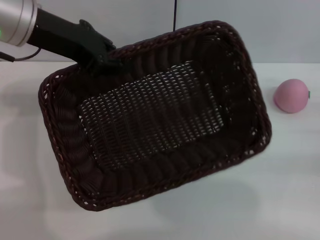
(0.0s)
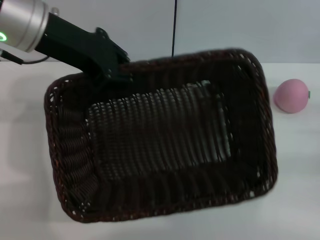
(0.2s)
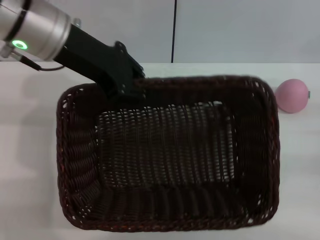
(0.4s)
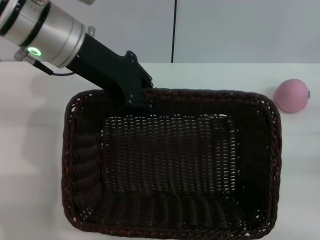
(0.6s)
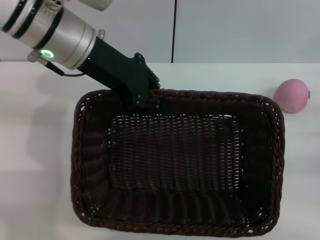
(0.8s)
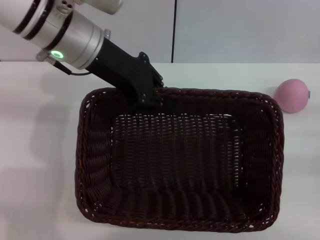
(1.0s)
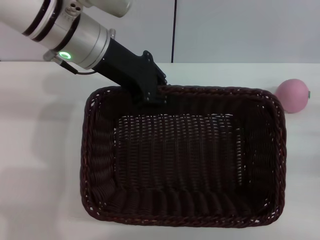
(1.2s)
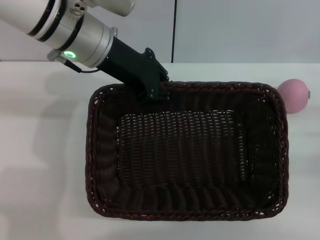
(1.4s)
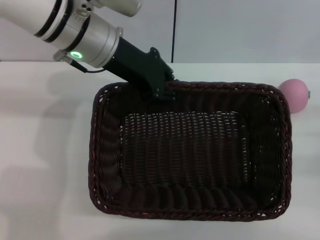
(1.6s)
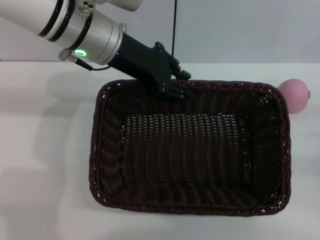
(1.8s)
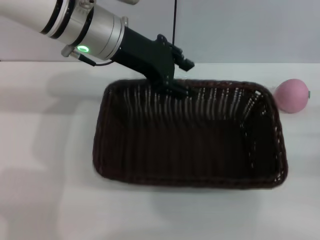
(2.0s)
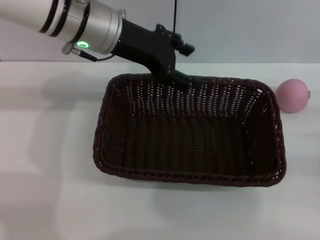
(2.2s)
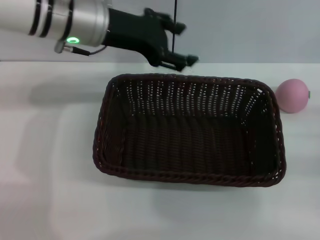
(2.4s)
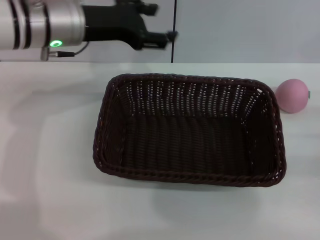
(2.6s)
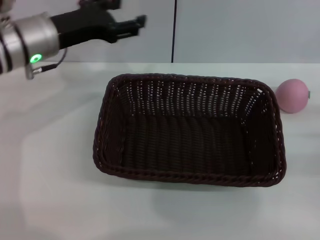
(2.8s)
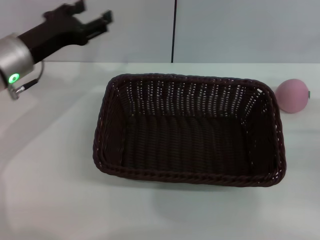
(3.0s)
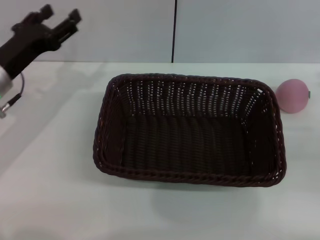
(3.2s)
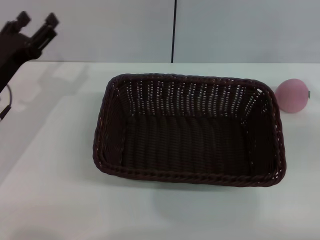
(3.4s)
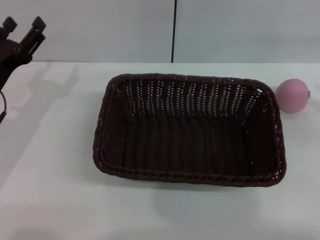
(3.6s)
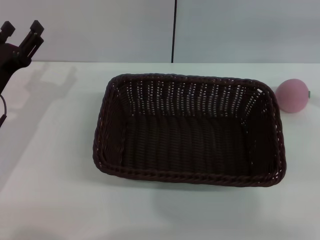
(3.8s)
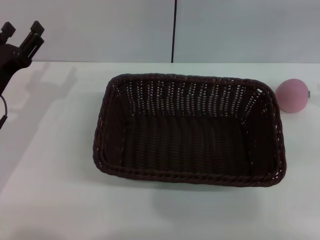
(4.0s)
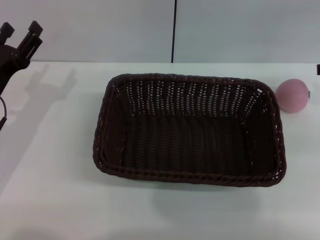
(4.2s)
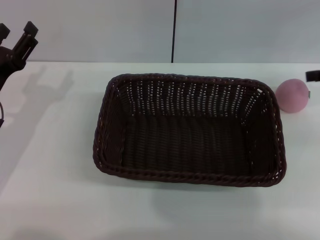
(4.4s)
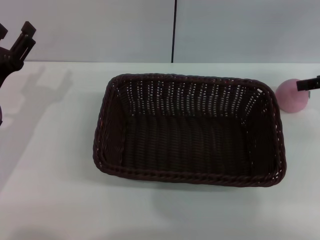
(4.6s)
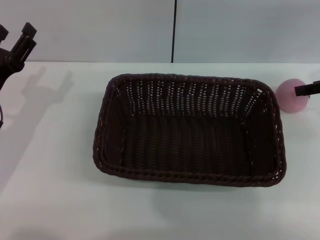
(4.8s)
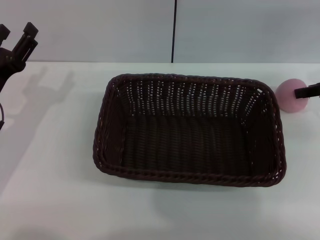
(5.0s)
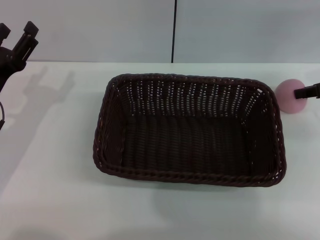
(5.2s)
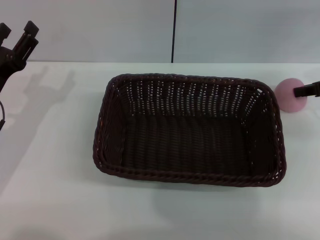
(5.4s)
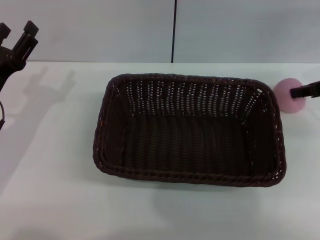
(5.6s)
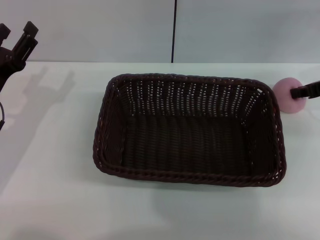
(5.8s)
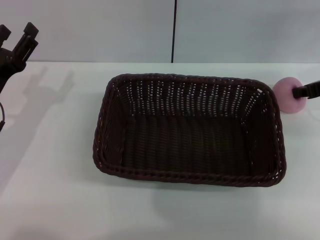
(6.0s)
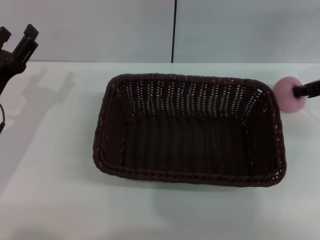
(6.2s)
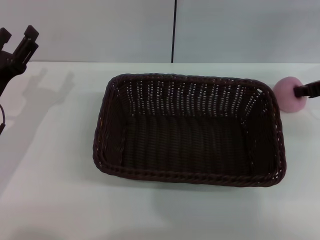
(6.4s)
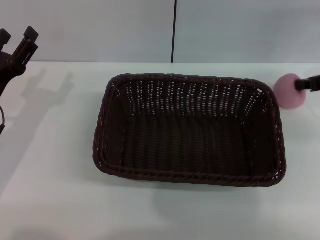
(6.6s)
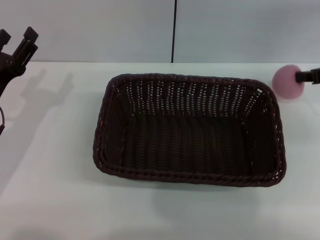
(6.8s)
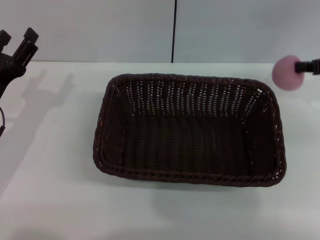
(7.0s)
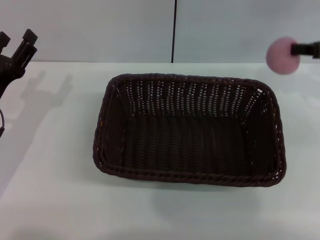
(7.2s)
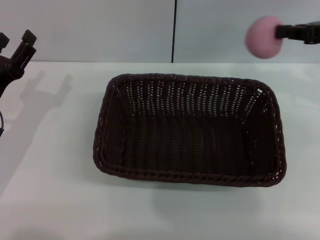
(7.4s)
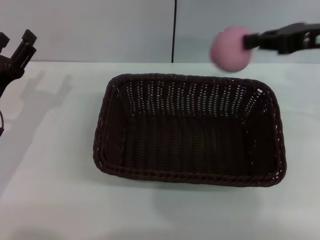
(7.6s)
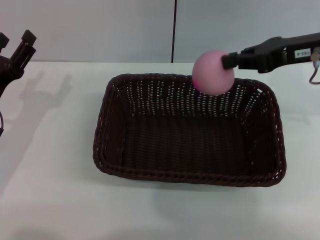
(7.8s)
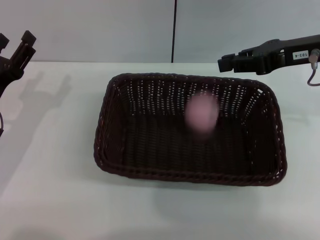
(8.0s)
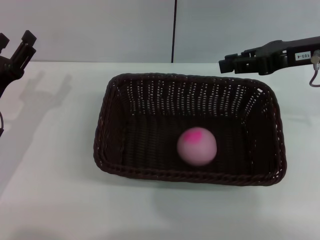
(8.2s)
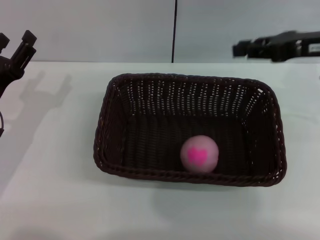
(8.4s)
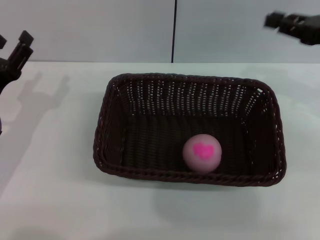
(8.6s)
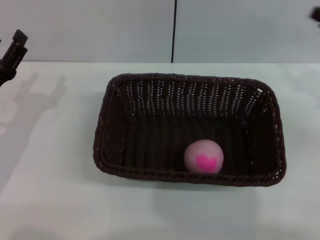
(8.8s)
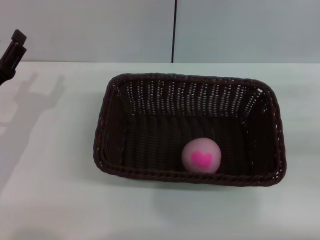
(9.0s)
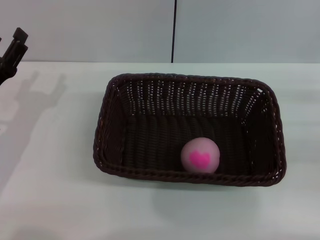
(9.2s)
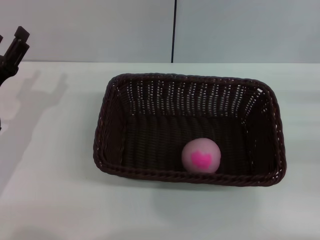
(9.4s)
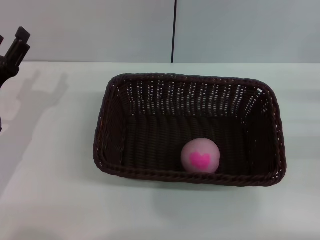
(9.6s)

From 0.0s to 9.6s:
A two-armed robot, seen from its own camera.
Step, from 2.6s to 7.0s: Pick up the peach with the left gripper.
From 0.0s to 1.6s: The left gripper goes approximately 10 cm to the right.
From 1.6s to 3.2s: The left gripper moves to the left and downward, approximately 20 cm, and opens its fingers.
From 3.2s to 4.8s: The left gripper moves some 5 cm.
From 6.4s to 8.0s: The right gripper goes roughly 10 cm to the left and upward.
From 8.0s to 9.6s: The right gripper moves to the right, downward and backward, about 20 cm, and opens its fingers.

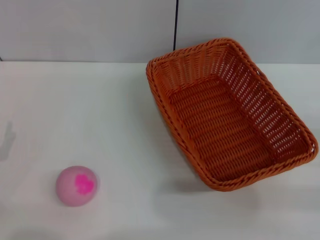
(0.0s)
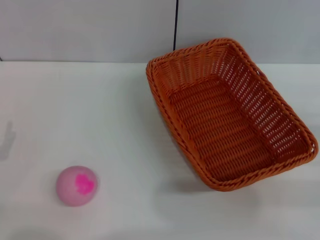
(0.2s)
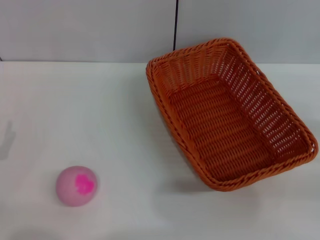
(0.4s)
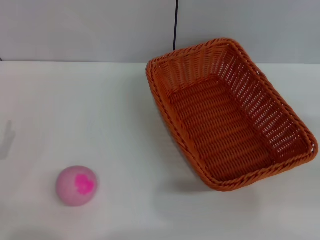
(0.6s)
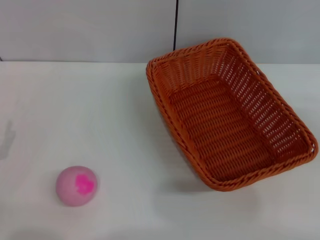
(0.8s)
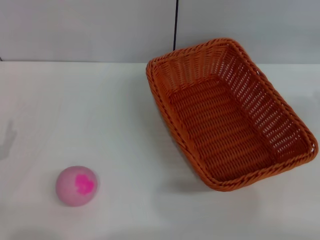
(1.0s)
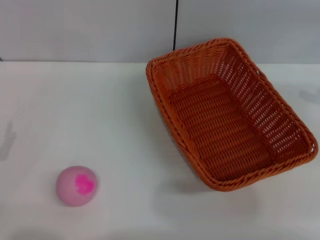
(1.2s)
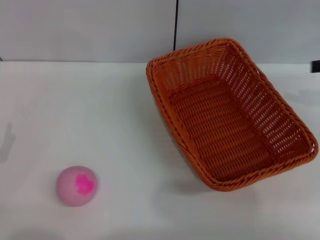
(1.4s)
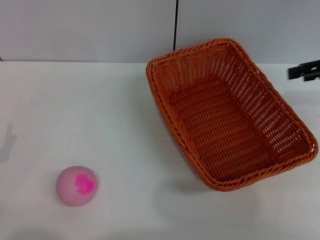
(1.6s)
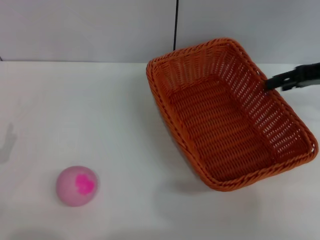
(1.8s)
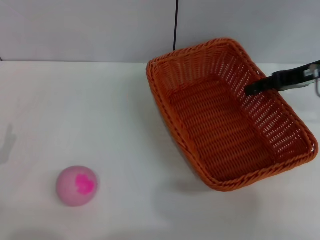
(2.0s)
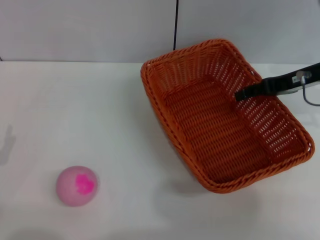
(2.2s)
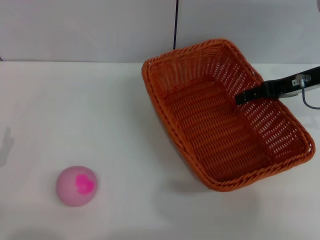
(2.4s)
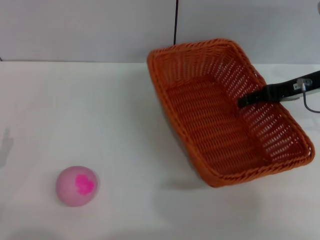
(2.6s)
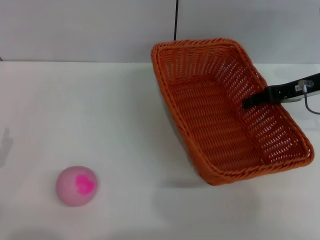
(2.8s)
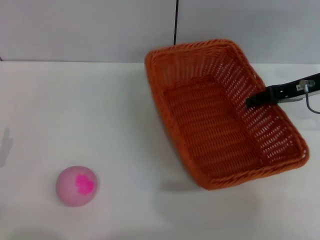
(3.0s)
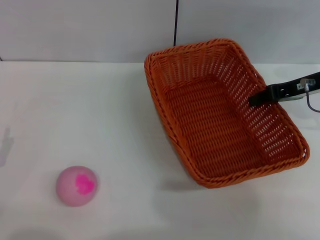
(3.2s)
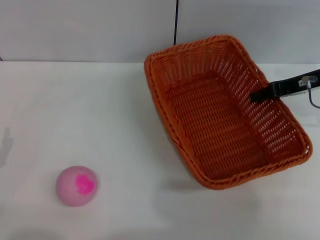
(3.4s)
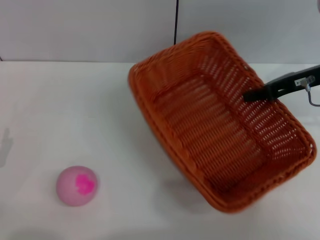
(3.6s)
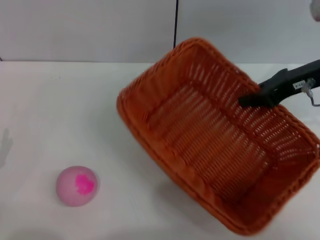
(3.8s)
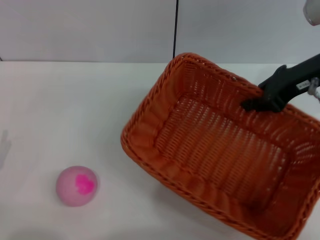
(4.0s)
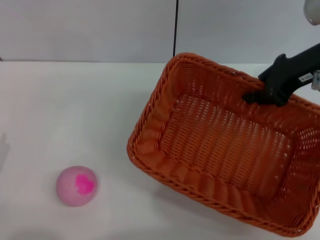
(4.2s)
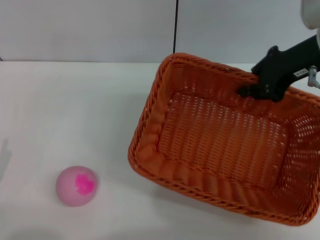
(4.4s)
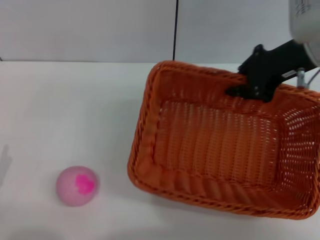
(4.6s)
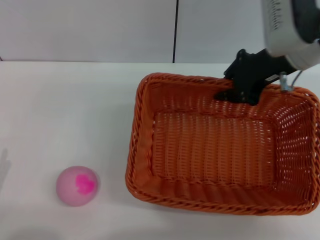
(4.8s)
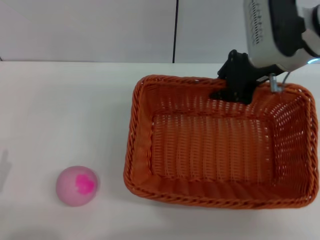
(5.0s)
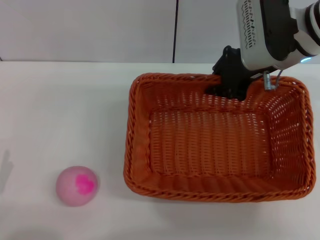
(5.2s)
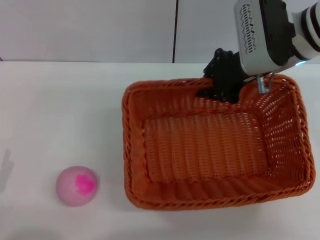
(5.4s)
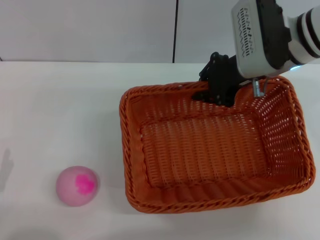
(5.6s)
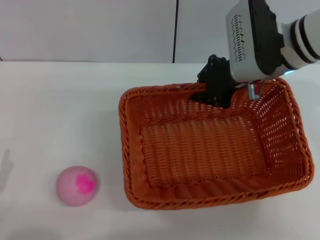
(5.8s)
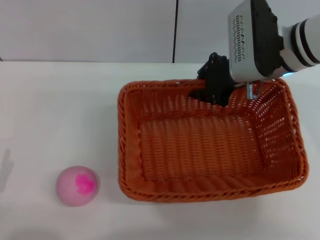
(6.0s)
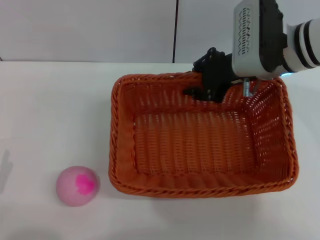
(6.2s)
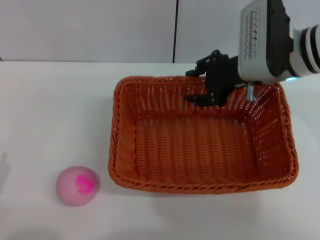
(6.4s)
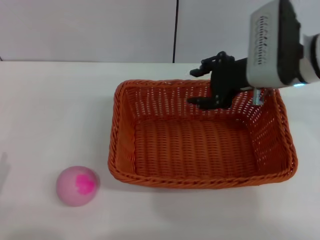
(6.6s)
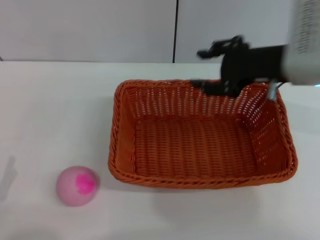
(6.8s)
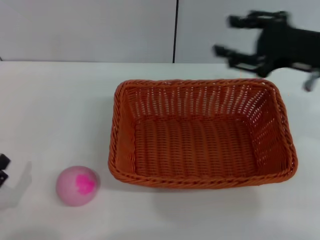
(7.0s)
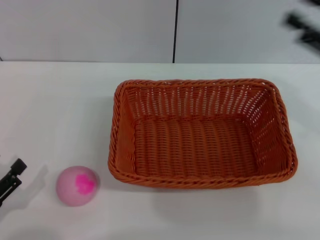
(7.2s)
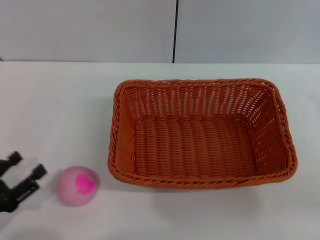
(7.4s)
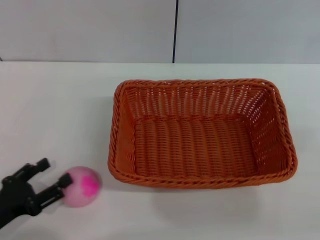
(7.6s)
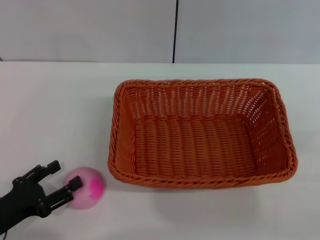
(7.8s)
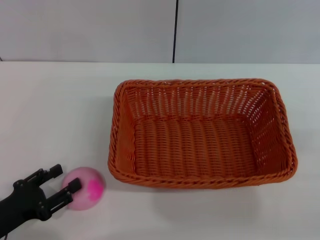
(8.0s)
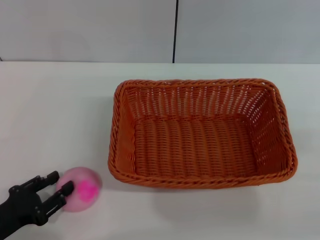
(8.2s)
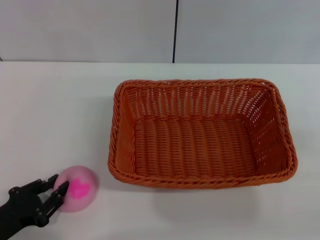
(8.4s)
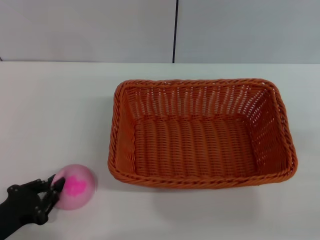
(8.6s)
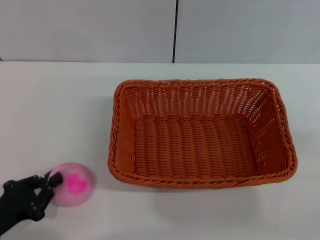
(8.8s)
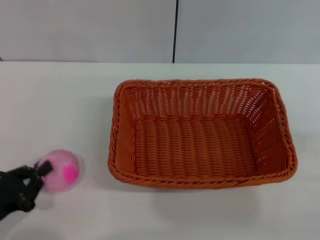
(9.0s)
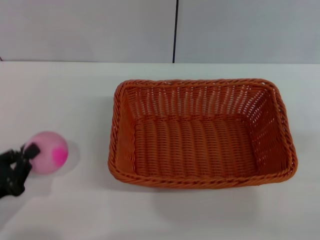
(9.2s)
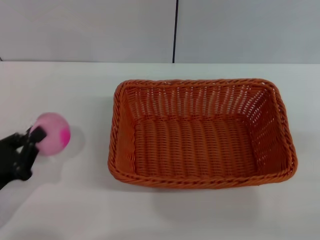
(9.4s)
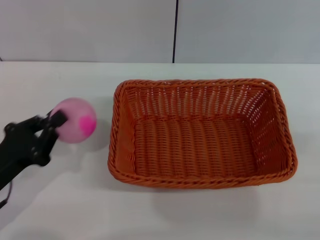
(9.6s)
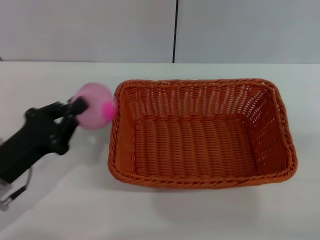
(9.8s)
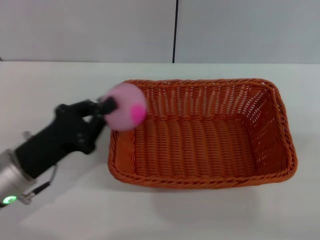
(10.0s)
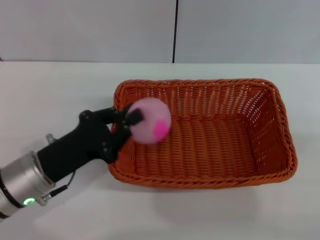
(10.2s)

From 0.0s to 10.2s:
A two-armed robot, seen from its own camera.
Step, from 0.0s to 3.8s: Pick up the light basket with the right gripper.
Step, from 4.0s to 6.6s: Place the light basket in the center of view with the right gripper.
Step, from 6.8s to 9.2s: Pick up the peach with the left gripper.
From 0.0s to 1.4s: The right gripper goes approximately 20 cm upward and forward.
From 1.4s to 3.0s: The right gripper travels to the left and downward by about 10 cm, and closes its fingers.
From 3.0s to 4.4s: The right gripper travels upward and to the left by about 10 cm, and closes its fingers.
From 4.4s to 5.8s: The right gripper is displaced to the left by some 5 cm.
From 5.8s to 7.2s: The right gripper shifts some 20 cm to the right and backward, and opens up.
From 7.2s to 8.8s: The left gripper closes up; the right gripper is displaced to the right, backward and downward by about 15 cm.
From 8.8s to 10.2s: The left gripper is displaced to the right and forward by approximately 15 cm.

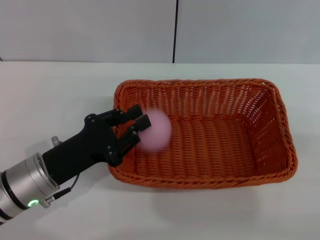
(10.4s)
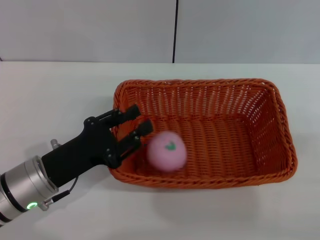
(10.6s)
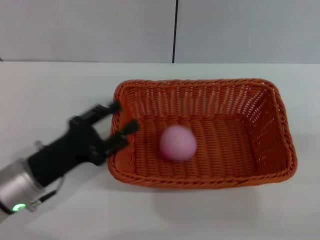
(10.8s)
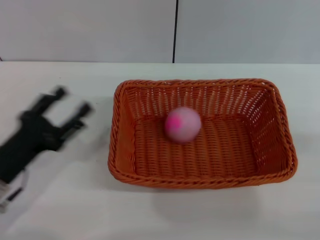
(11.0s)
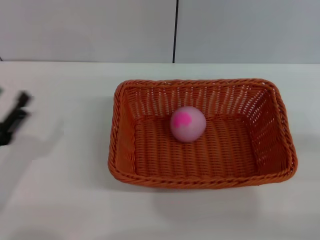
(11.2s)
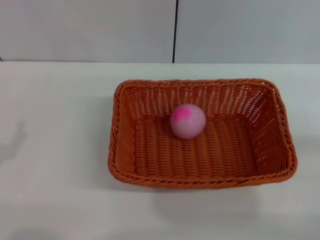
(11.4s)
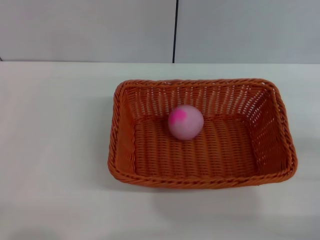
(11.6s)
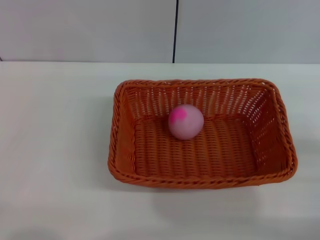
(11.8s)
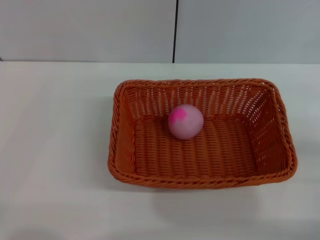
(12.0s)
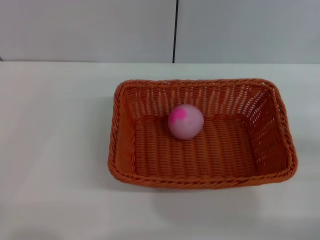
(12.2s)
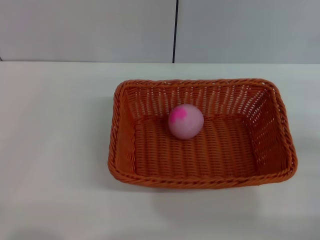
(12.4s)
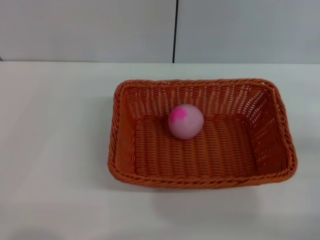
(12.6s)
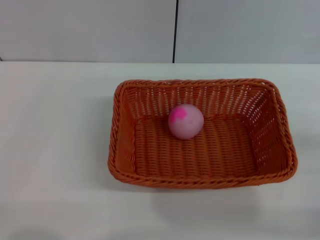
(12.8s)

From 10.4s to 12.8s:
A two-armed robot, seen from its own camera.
From 10.4s to 11.6s: The left gripper shifts approximately 15 cm to the left and backward, and opens.
